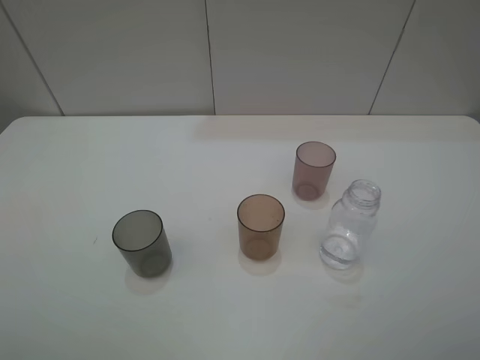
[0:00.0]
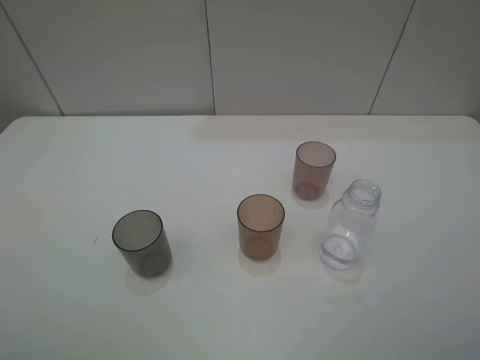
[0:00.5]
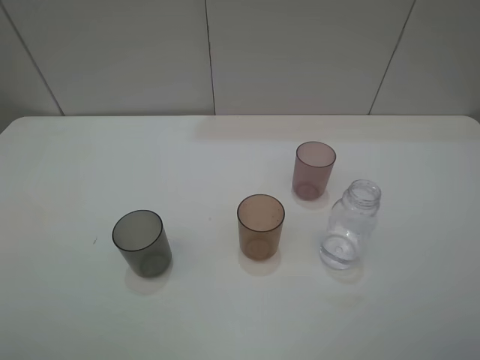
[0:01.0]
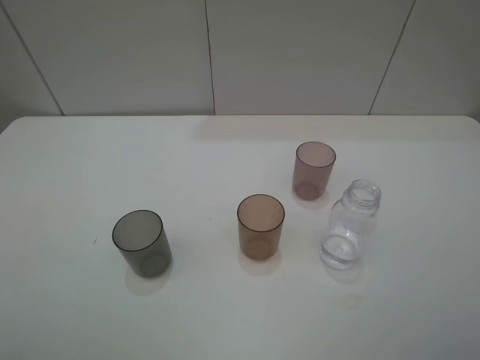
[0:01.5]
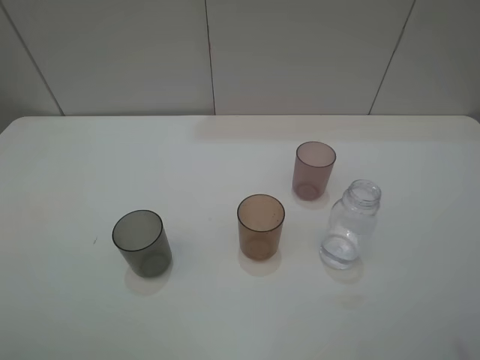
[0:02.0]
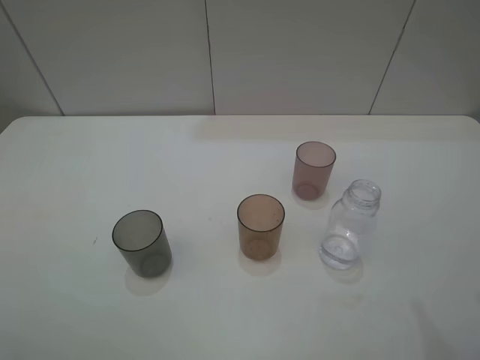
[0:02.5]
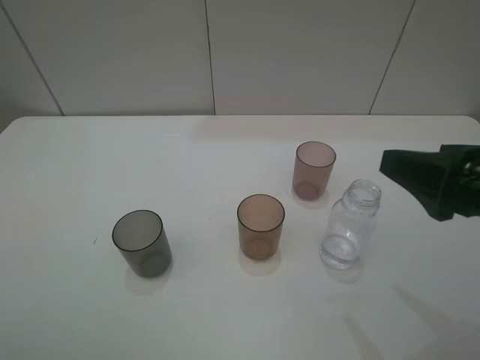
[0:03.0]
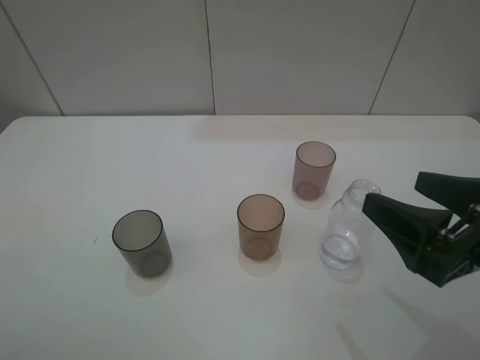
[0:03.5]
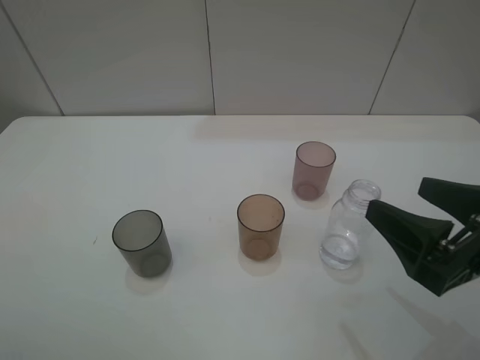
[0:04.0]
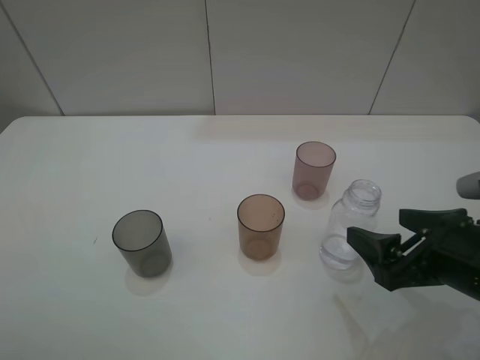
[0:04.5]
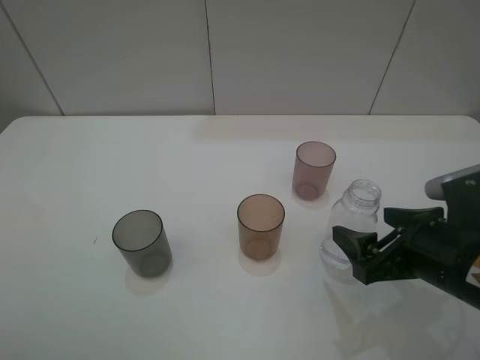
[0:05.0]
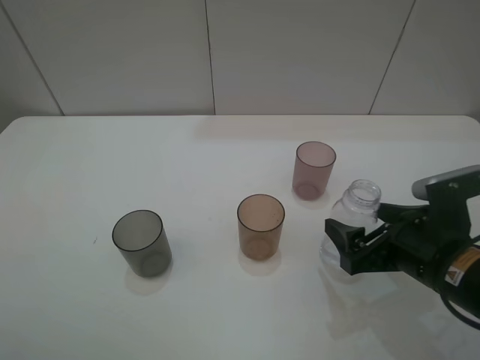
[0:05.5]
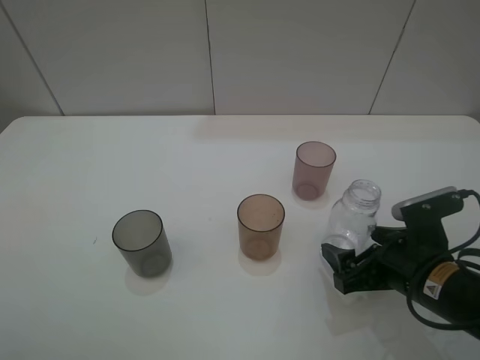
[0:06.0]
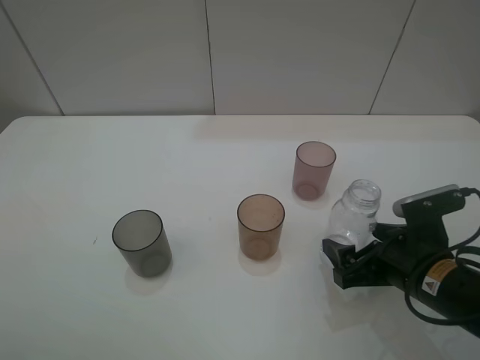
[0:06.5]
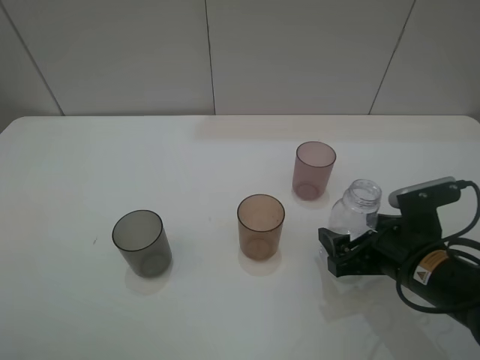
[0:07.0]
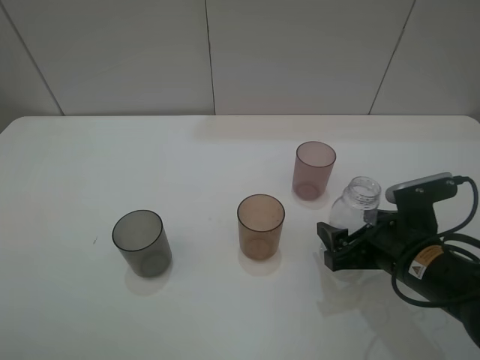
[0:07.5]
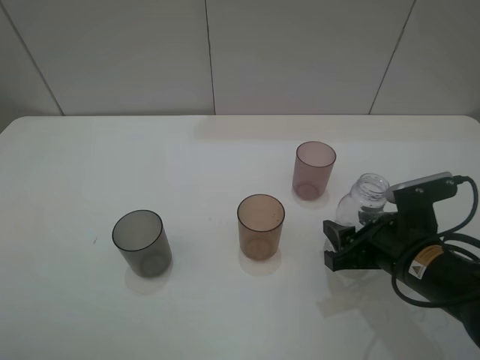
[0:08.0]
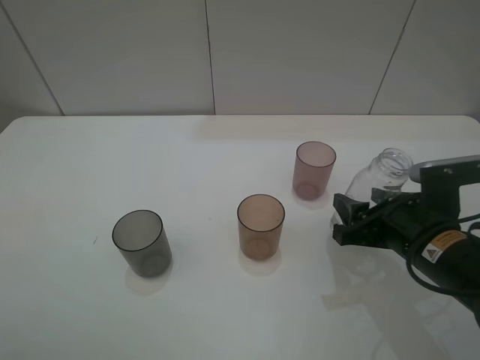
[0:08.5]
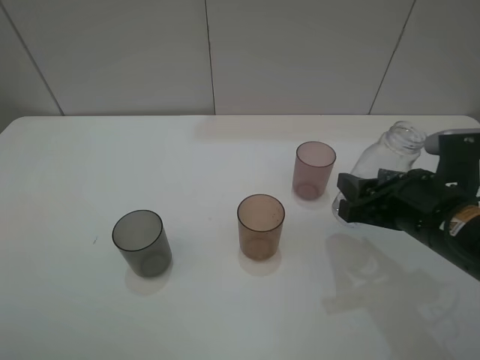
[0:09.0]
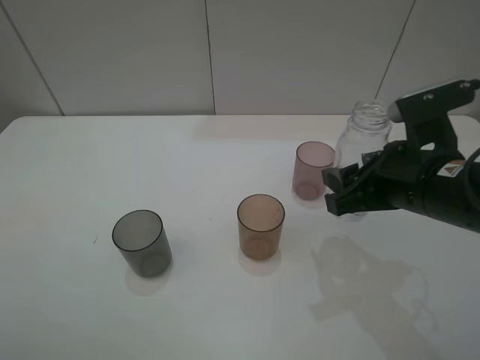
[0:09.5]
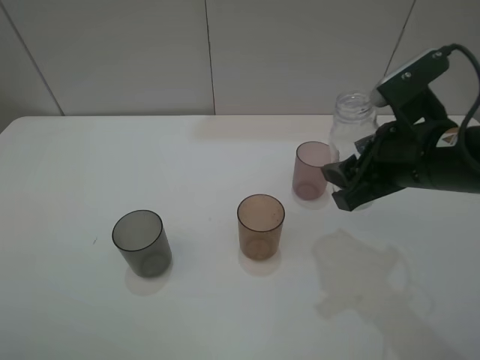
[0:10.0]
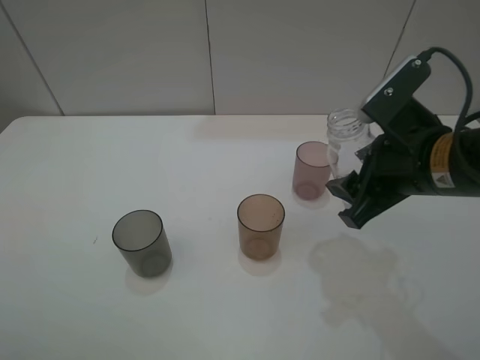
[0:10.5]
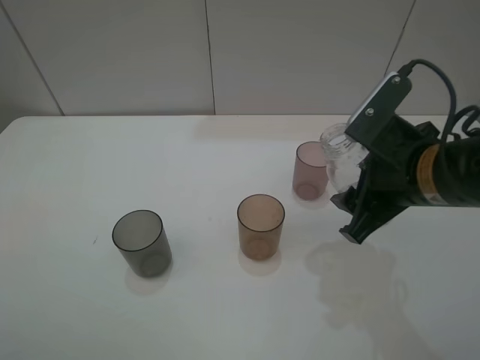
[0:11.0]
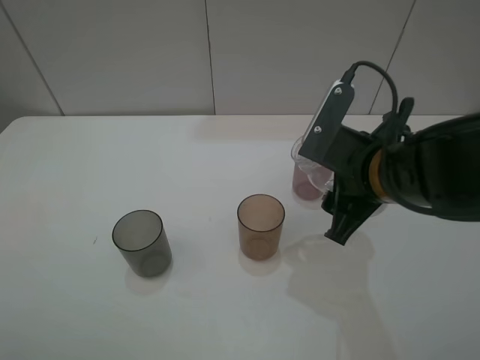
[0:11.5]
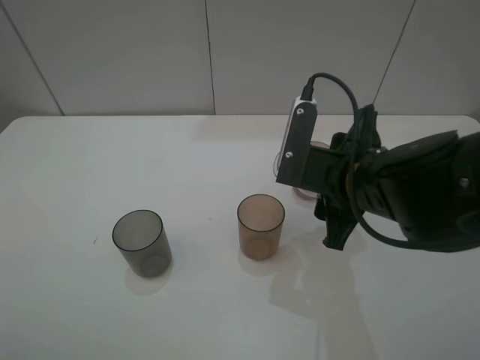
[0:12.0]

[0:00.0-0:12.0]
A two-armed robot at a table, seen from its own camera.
Task of the whole recording: pick up the bottle filled with water and pour water into the middle cup of the three cups.
Step, 0:00.0 to 0:07.5: Grasp the transparent bottle with the right gripper.
0:02.0 to 0:04.0: The right gripper heads downward, covering about 15 cm.
0:04.0 to 0:06.0: The right gripper moves downward and forward, roughly 10 cm.
0:06.0 to 0:08.0: The right gripper closes.
0:08.0 to 0:10.0: The right gripper goes some 15 cm upward.
0:10.0 to 0:12.0: The right gripper is displaced to the left by roughly 5 cm.

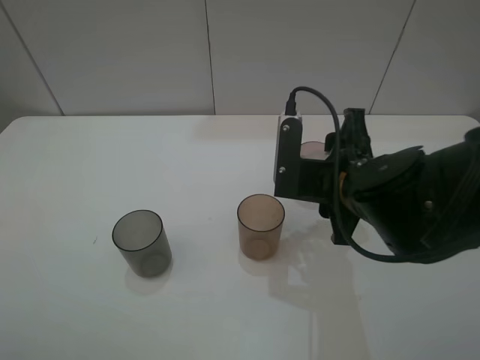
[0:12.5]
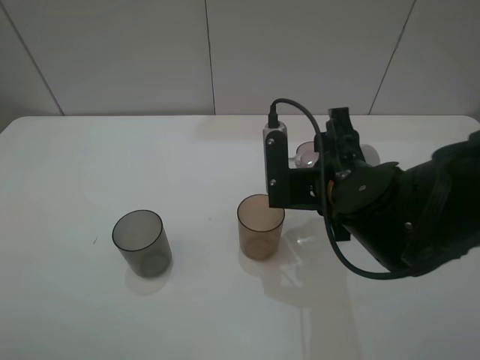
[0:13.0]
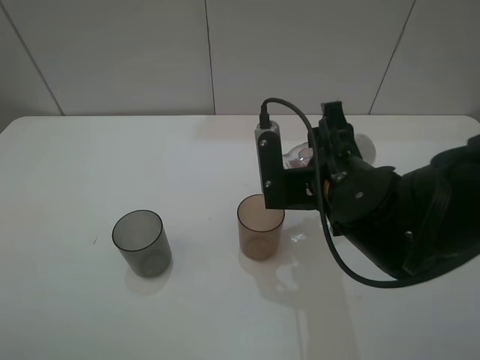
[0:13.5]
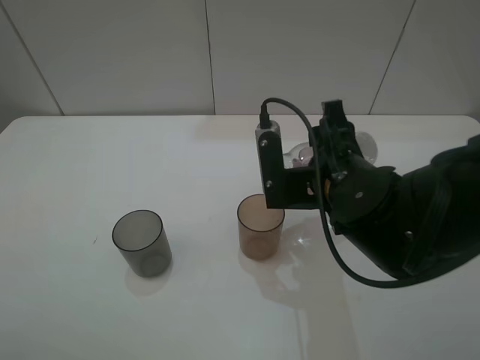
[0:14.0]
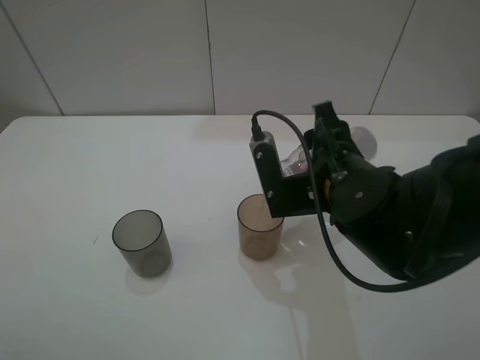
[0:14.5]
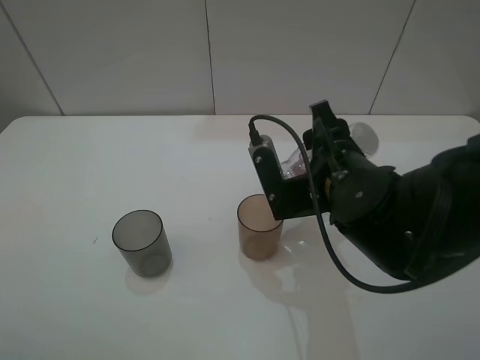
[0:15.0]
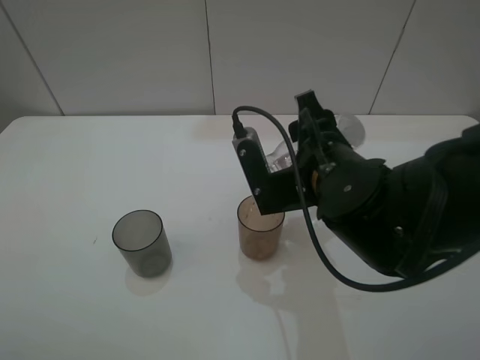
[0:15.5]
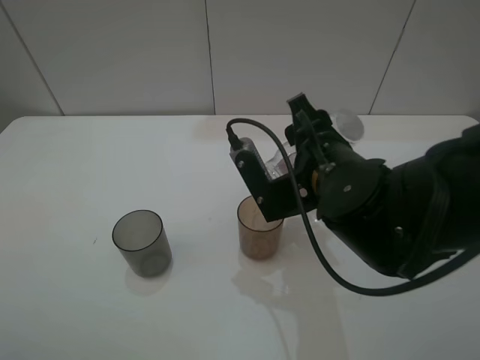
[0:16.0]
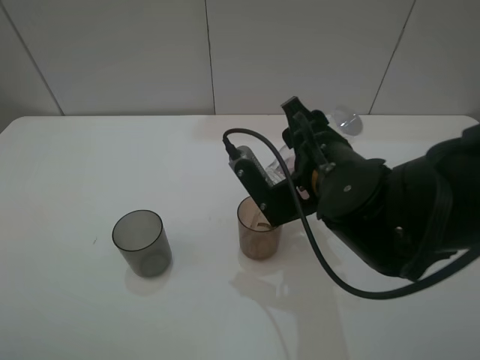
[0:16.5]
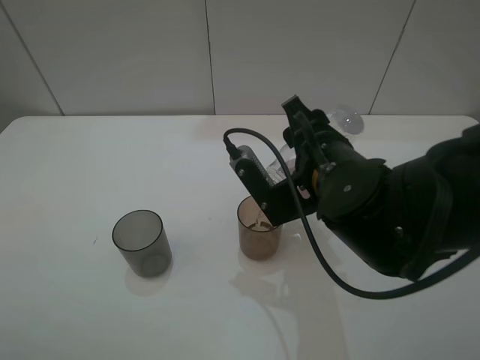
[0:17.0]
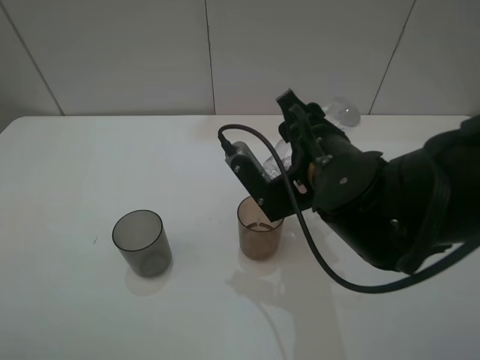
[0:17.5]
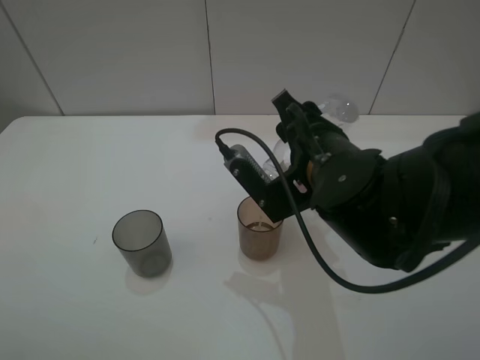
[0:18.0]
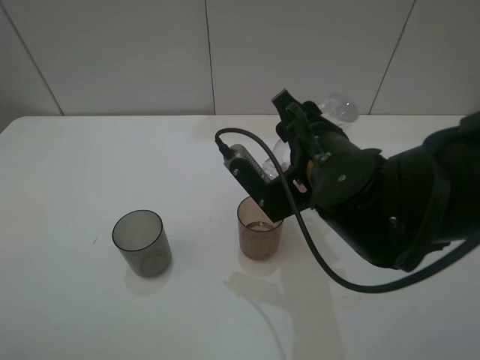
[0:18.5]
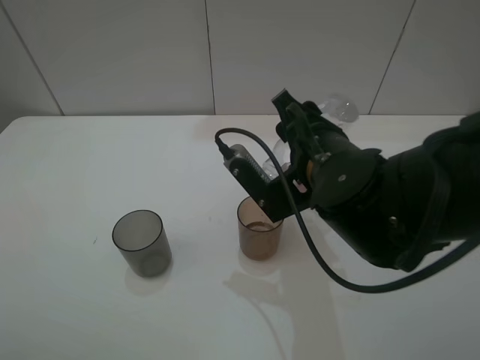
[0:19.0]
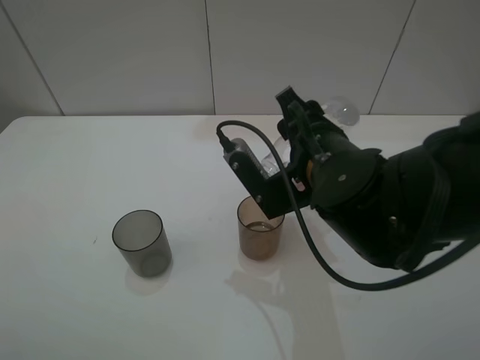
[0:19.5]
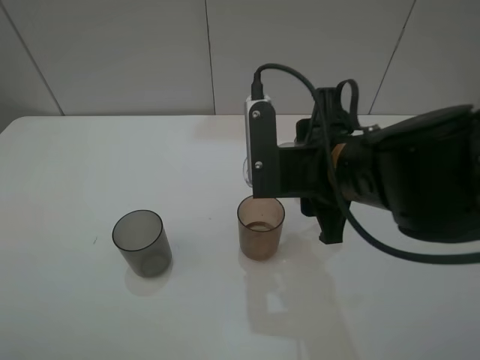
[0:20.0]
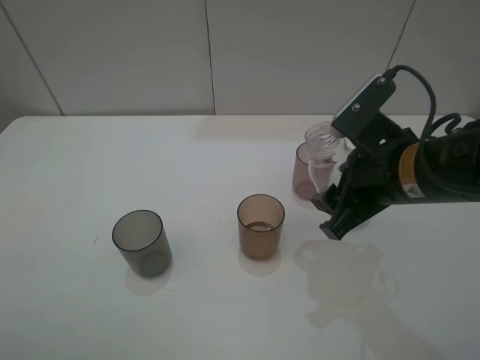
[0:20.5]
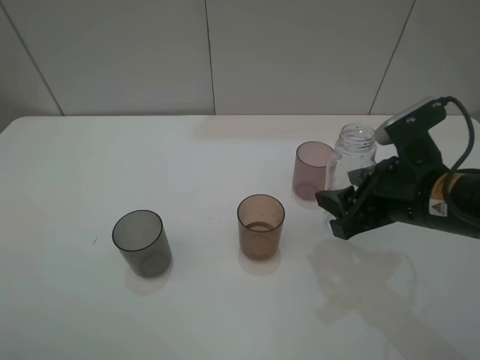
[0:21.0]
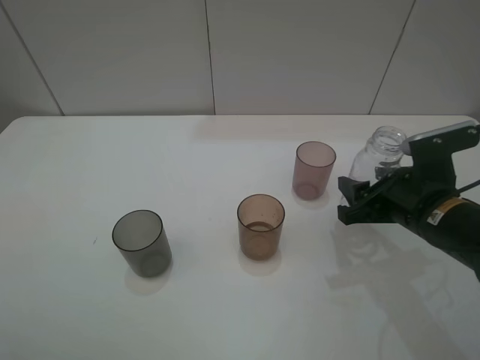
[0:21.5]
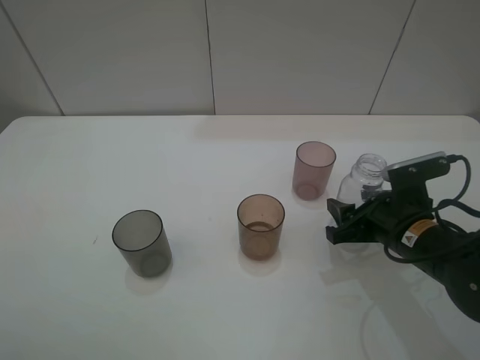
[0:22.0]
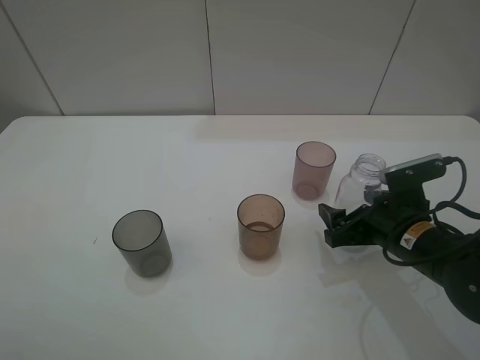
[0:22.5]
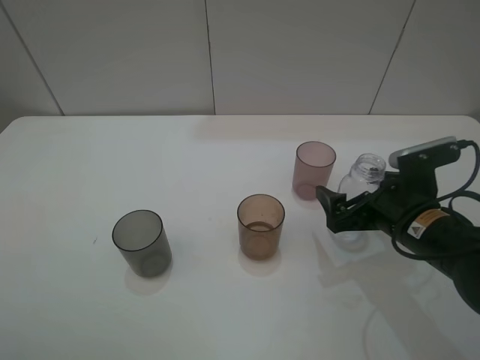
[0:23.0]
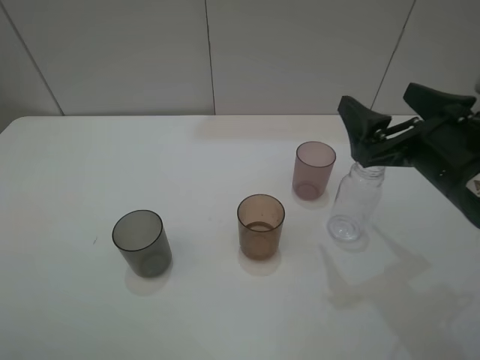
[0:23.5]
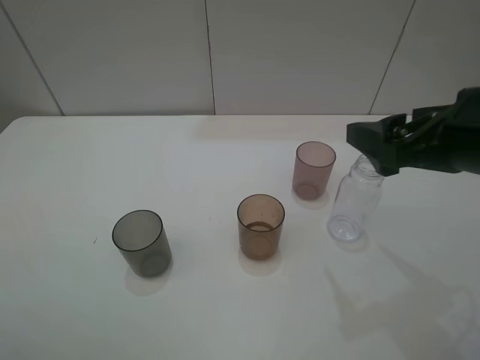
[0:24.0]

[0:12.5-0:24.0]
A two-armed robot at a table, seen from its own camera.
Task of the whole recording: pick up the bottle filled with water and pour water into the middle cup of the three cups.
Step, 0:12.5 to 0:20.0: Pour water from transparent bottle tobrown cup with the right gripper.
Step, 0:20.5 to 0:23.0: Place the transparent bottle with the right gripper.
0:14.5 to 0:16.5: The grippers move only a little.
0:16.5 to 0:18.5: The grippers stay close to where they were, moving slightly.
0:20.0 to 0:22.0: The right gripper moves downward and to the right, roughly 15 cm.
0:22.0 to 0:24.0: The right gripper moves upward, some 20 cm, and opens its fingers.
